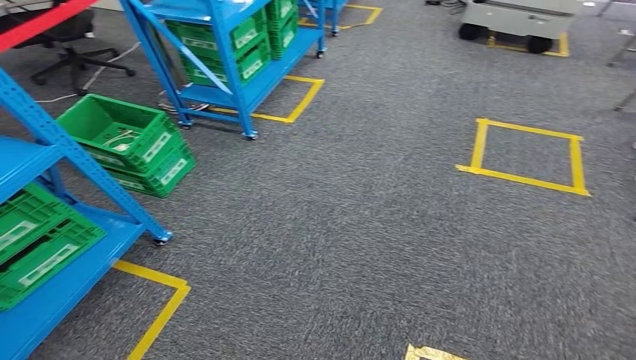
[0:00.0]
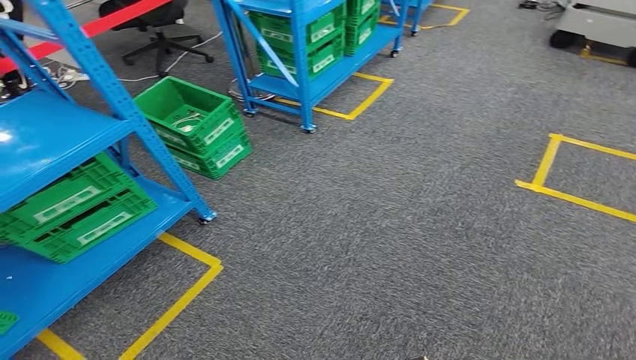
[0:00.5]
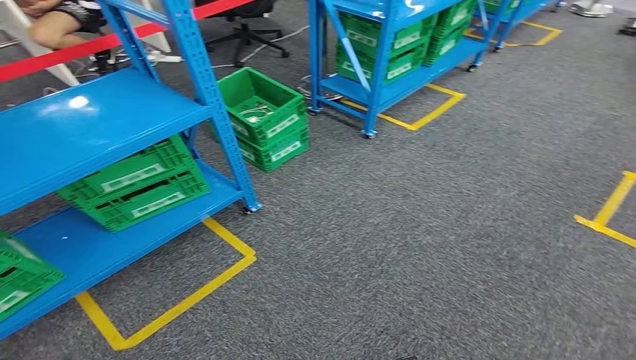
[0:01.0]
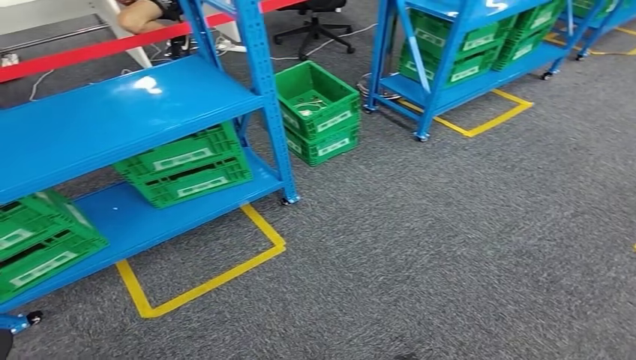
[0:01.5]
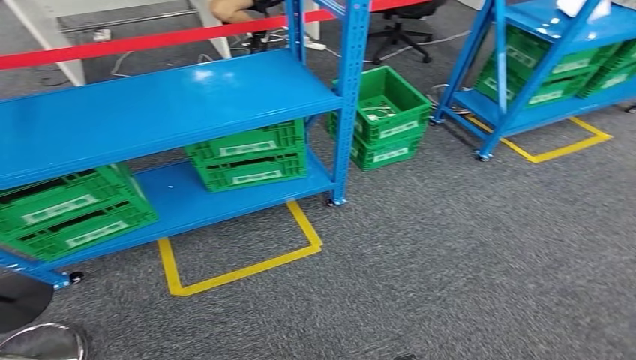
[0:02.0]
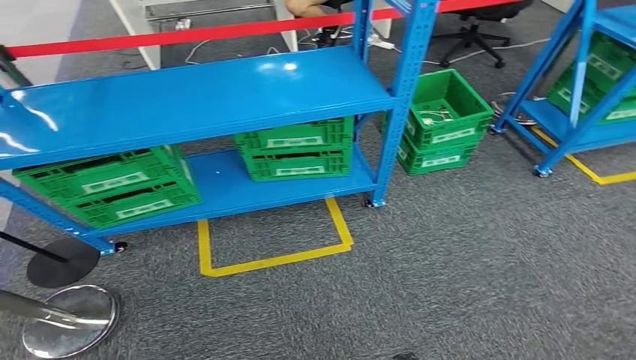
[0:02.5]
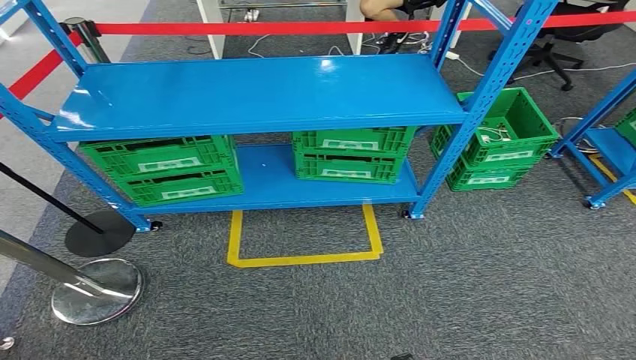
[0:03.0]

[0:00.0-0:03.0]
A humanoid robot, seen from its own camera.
Step, 0:00.0 to 0:03.0: Move to the initial position of the workbench.
